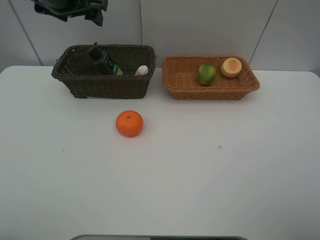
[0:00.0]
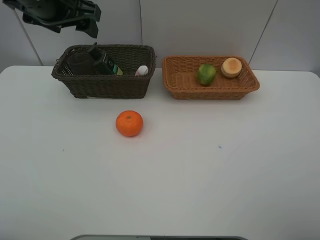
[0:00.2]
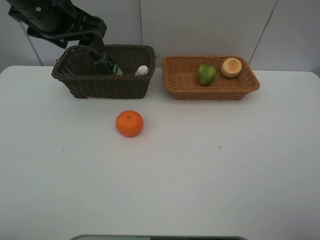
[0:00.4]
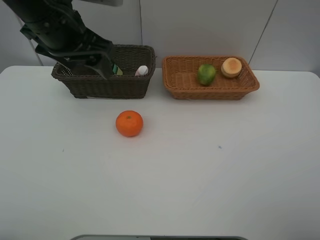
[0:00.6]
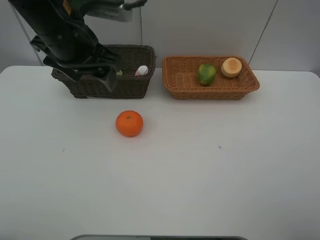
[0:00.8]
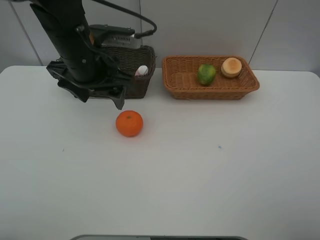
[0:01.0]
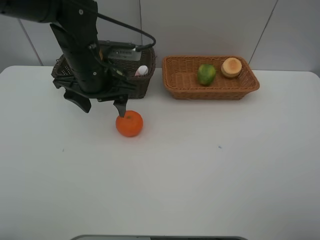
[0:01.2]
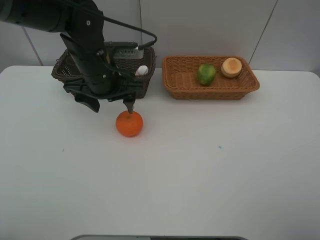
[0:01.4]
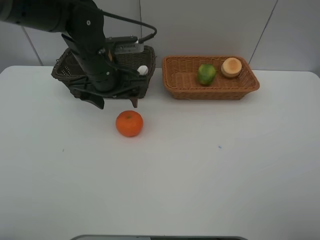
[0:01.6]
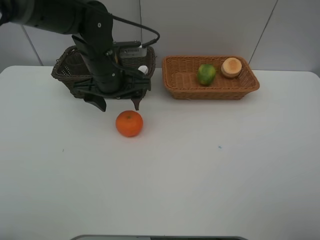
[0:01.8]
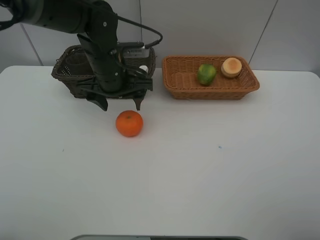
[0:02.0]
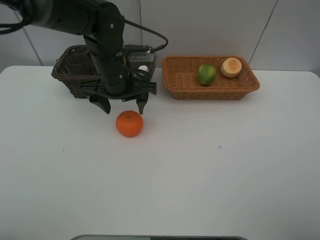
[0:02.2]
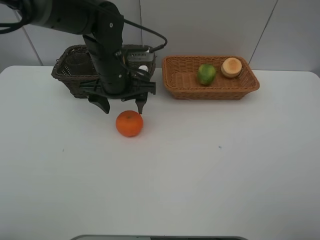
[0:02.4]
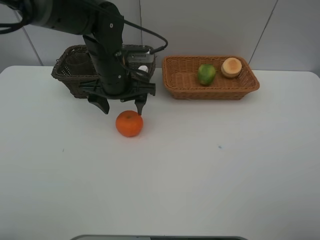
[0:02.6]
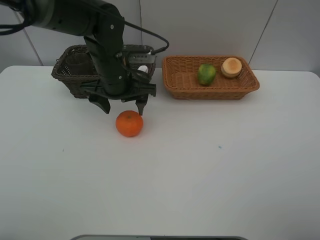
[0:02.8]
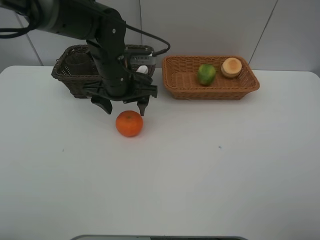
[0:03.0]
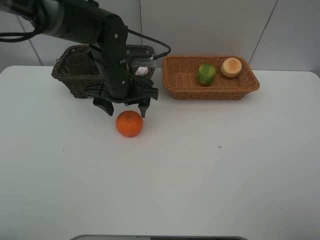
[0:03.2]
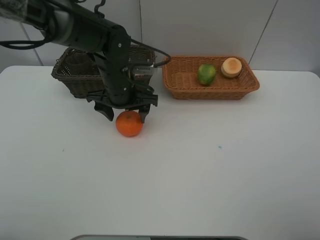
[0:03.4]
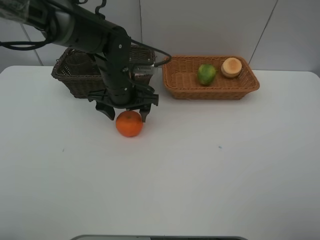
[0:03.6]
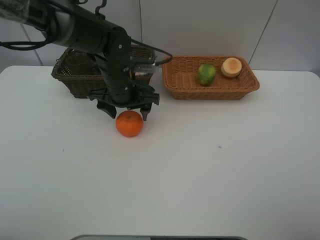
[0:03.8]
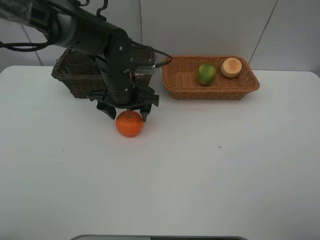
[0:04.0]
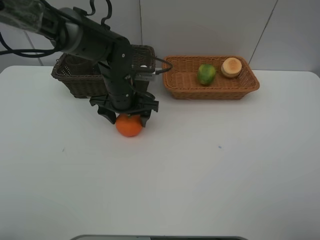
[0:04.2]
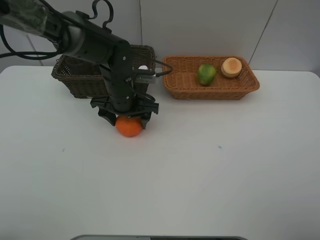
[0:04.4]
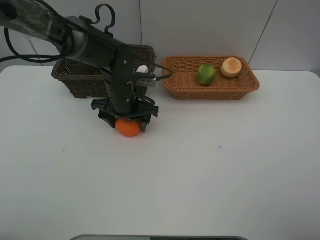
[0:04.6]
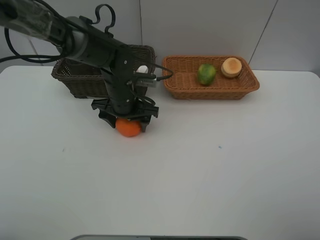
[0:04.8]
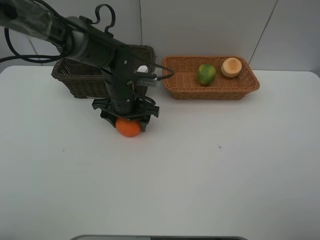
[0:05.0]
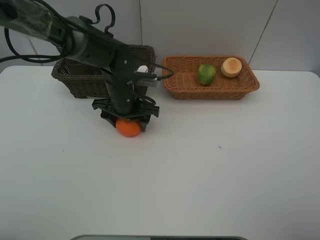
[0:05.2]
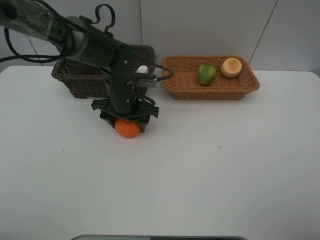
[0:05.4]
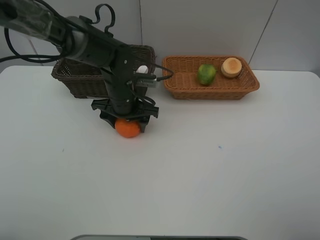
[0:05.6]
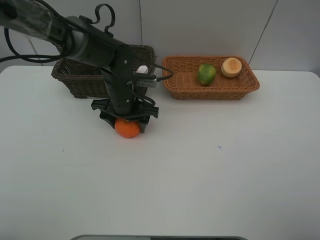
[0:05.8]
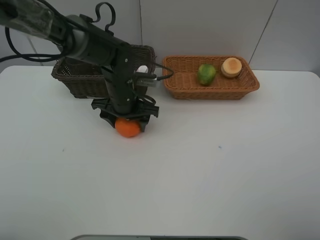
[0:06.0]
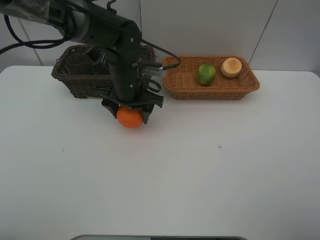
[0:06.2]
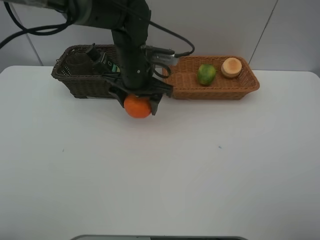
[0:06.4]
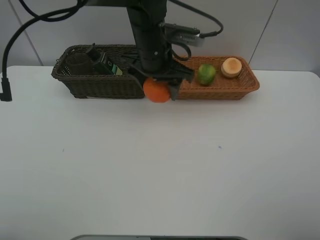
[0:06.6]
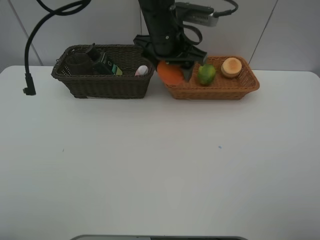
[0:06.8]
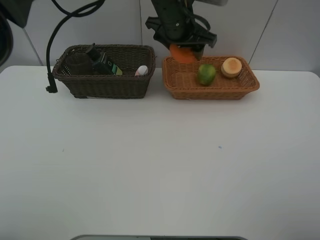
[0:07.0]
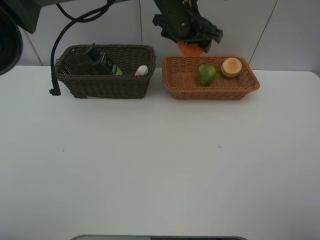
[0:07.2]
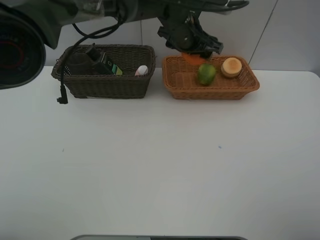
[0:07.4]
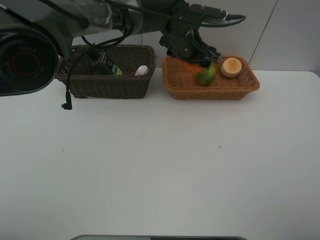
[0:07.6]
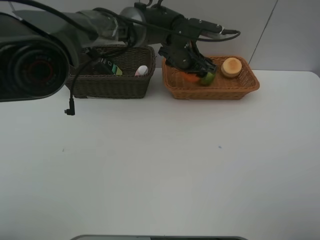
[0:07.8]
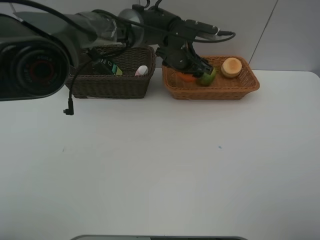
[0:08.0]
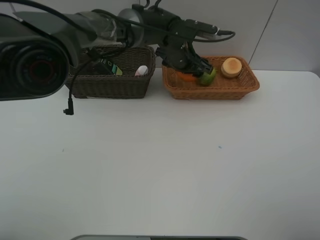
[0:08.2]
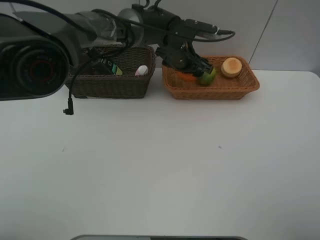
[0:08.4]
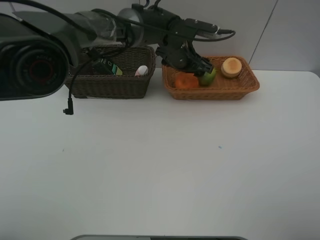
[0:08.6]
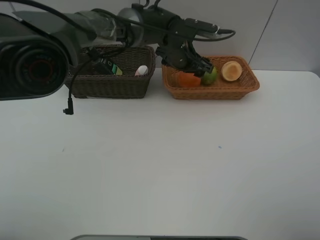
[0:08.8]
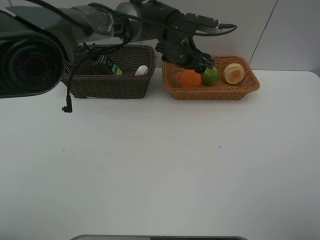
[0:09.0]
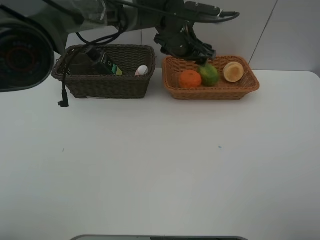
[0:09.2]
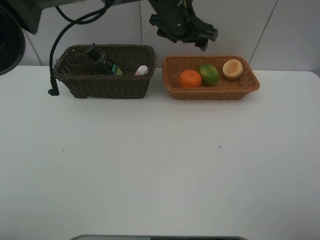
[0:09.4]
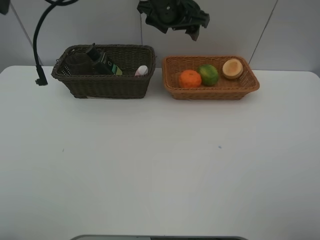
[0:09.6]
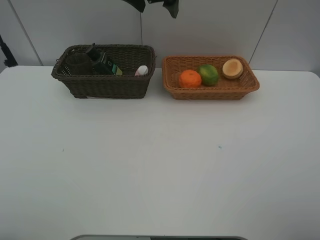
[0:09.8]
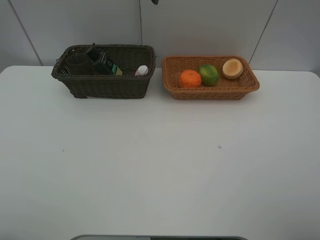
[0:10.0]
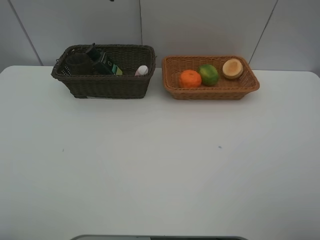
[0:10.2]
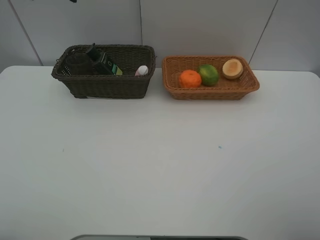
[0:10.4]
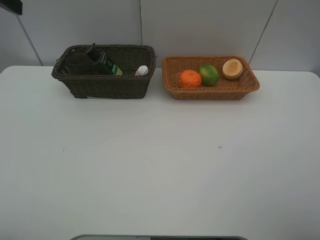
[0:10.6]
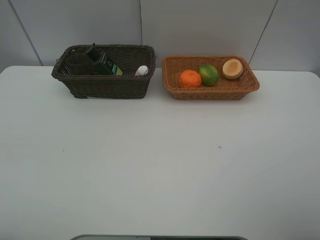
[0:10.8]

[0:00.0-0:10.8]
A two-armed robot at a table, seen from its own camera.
Task of the whole recording: place multiple objects separately in different baskets.
0:00.0 to 0:01.6: The left gripper goes some 15 cm downward, to the right and backward.
0:01.6 to 0:03.0: There are only small adjustments of the grippers.
0:03.0 to 0:04.6: The left gripper moves downward, about 5 cm.
0:04.6 to 0:06.2: The grippers make only small movements.
0:06.2 to 0:07.8: The left gripper goes roughly 15 cm to the right and forward.
0:07.8 to 0:09.2: The grippers make only small movements.
0:09.2 to 0:10.8: The left gripper shifts approximately 50 cm to the left, backward and upward.

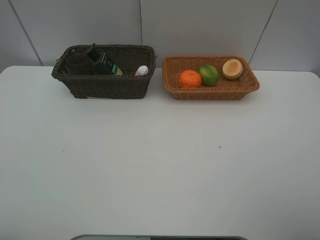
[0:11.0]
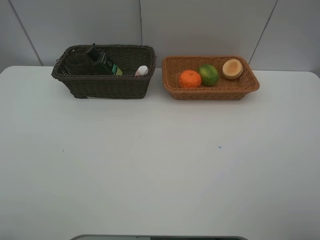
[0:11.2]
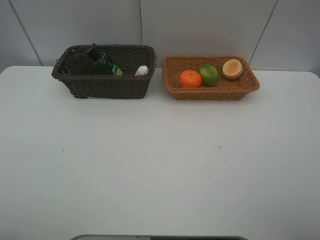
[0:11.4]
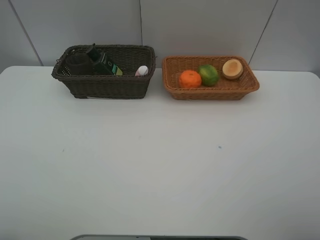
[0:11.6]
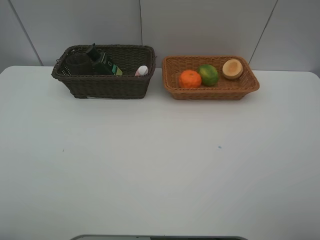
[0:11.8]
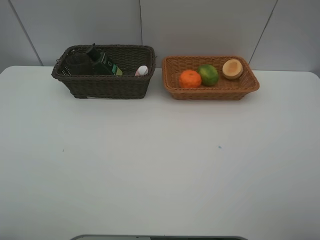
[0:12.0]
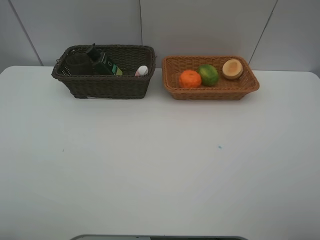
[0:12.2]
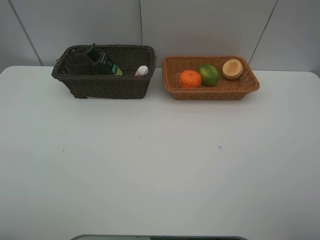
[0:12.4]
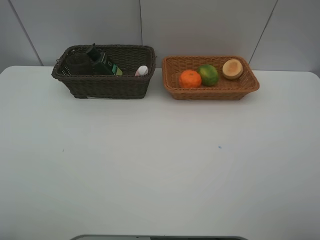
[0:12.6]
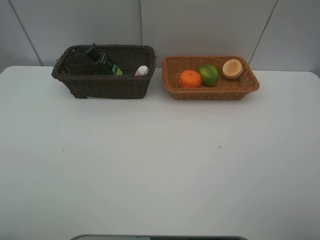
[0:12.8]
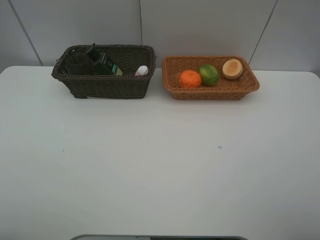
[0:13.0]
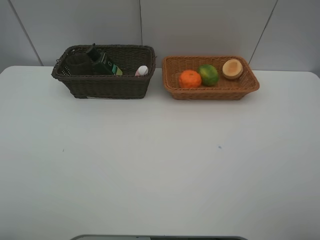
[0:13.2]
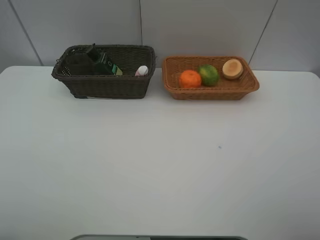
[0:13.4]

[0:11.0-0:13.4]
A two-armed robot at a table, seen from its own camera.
Task of the whole recording: place multiple objects separately in different baskets.
0:12.2 to 0:13.4: Both grippers stay about where they are.
